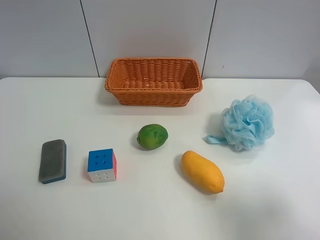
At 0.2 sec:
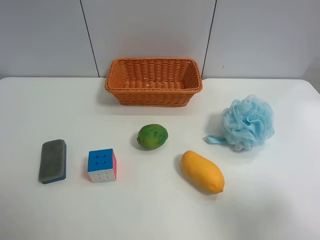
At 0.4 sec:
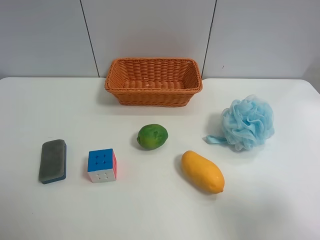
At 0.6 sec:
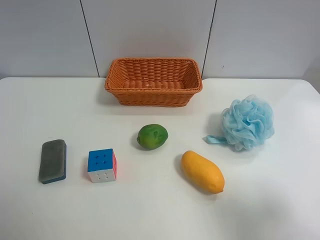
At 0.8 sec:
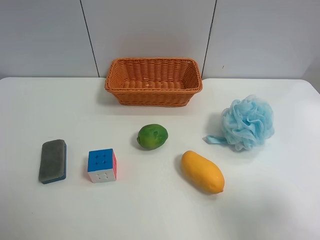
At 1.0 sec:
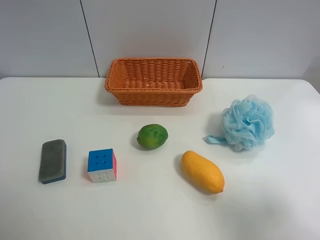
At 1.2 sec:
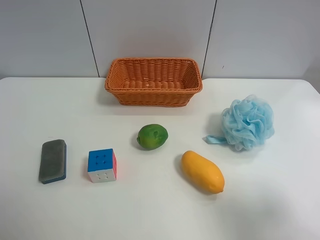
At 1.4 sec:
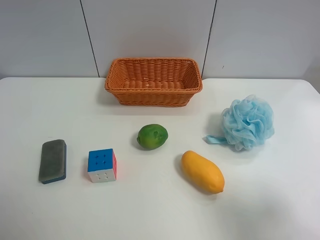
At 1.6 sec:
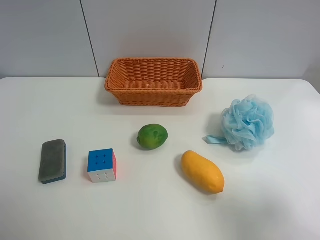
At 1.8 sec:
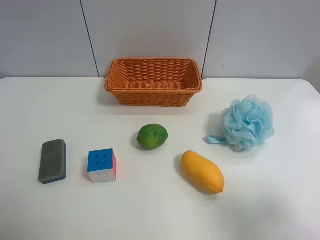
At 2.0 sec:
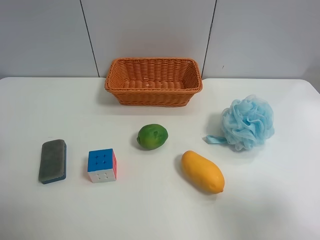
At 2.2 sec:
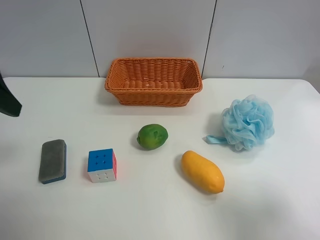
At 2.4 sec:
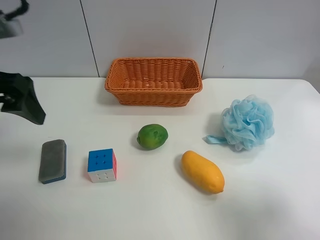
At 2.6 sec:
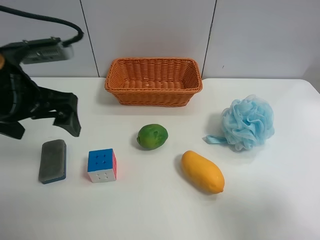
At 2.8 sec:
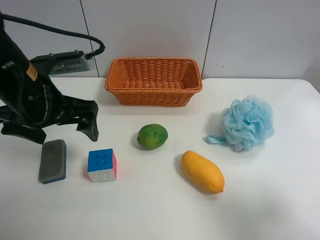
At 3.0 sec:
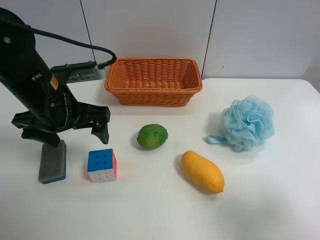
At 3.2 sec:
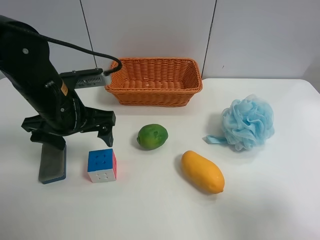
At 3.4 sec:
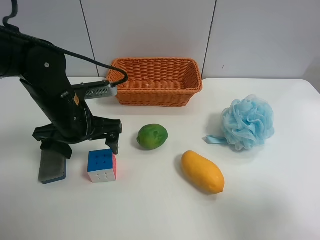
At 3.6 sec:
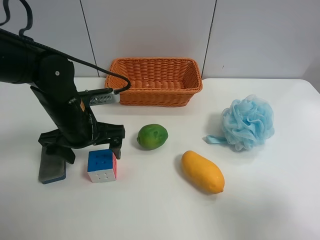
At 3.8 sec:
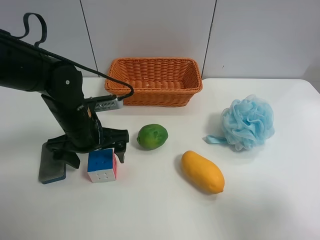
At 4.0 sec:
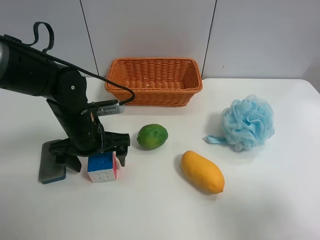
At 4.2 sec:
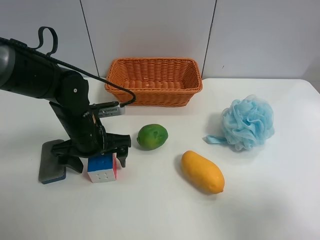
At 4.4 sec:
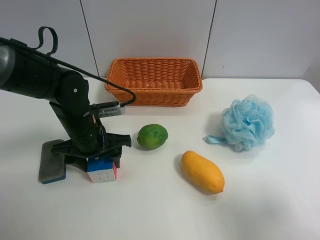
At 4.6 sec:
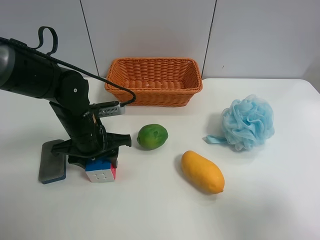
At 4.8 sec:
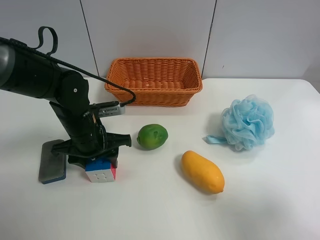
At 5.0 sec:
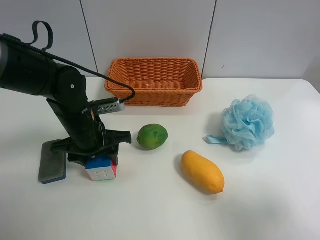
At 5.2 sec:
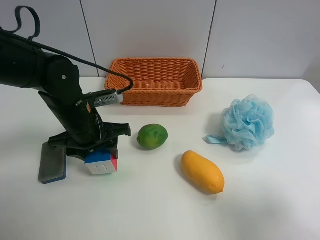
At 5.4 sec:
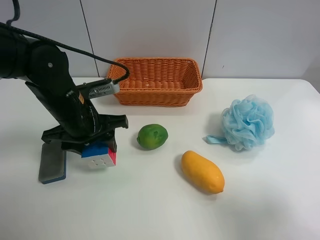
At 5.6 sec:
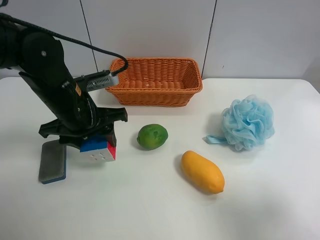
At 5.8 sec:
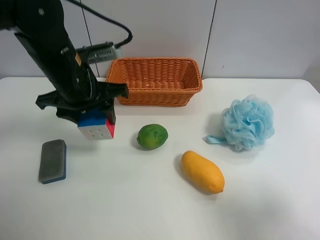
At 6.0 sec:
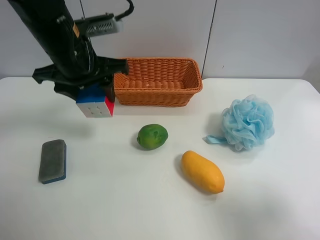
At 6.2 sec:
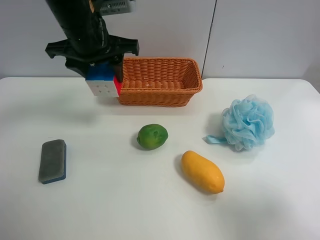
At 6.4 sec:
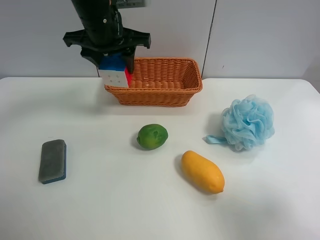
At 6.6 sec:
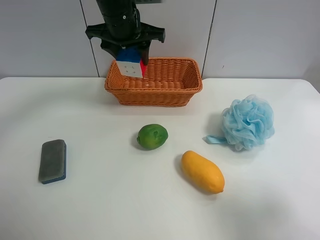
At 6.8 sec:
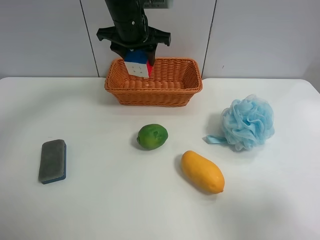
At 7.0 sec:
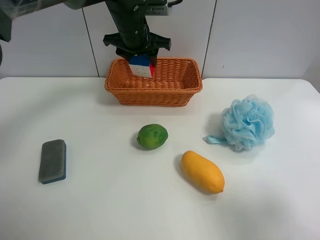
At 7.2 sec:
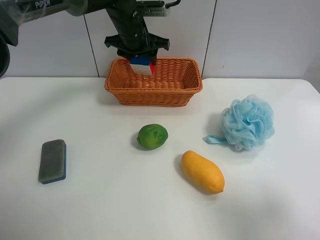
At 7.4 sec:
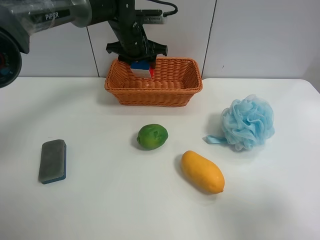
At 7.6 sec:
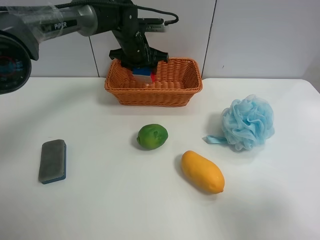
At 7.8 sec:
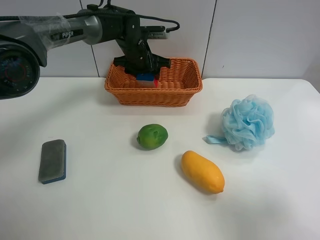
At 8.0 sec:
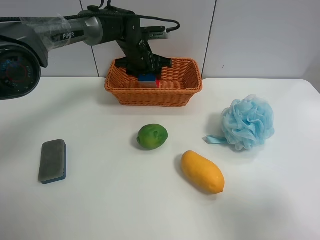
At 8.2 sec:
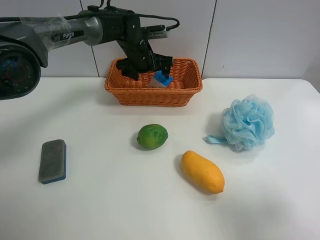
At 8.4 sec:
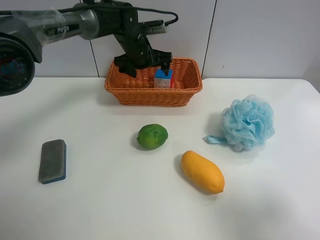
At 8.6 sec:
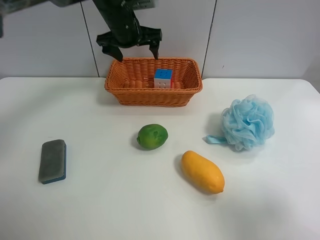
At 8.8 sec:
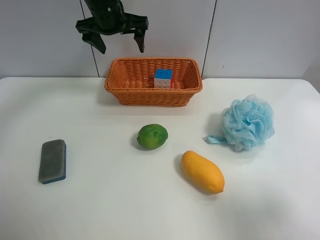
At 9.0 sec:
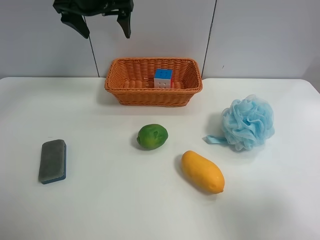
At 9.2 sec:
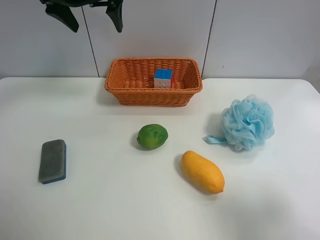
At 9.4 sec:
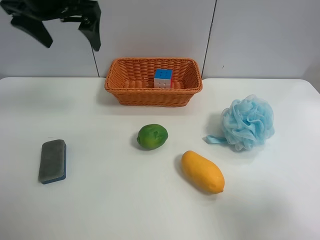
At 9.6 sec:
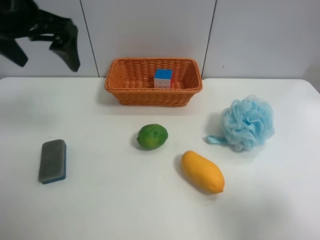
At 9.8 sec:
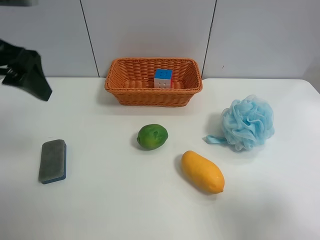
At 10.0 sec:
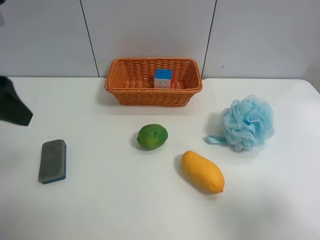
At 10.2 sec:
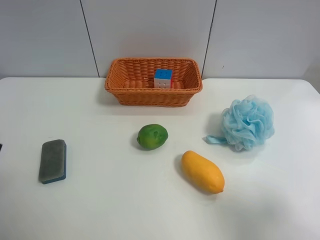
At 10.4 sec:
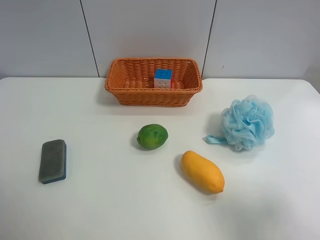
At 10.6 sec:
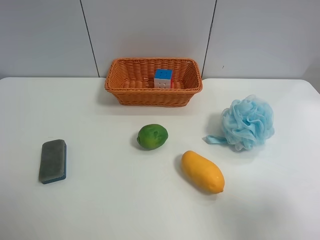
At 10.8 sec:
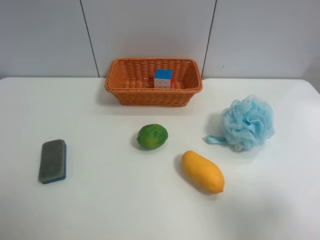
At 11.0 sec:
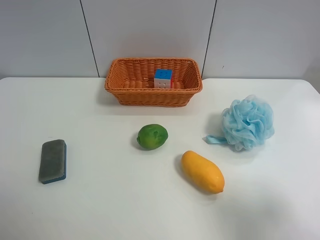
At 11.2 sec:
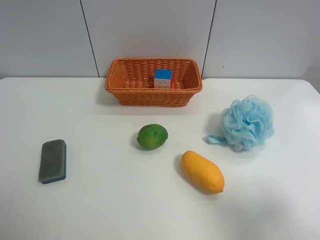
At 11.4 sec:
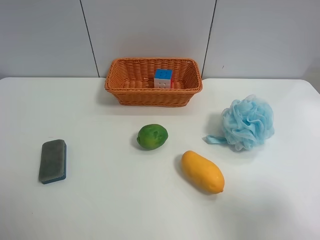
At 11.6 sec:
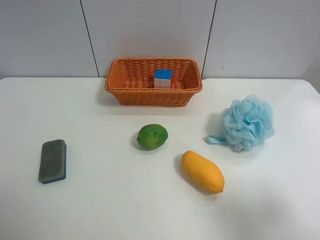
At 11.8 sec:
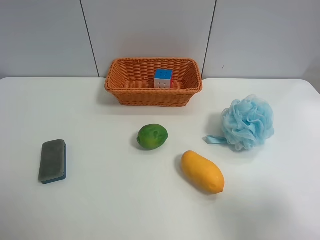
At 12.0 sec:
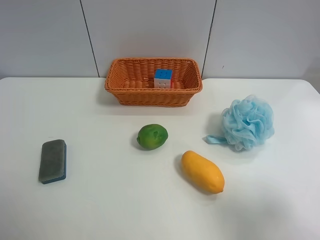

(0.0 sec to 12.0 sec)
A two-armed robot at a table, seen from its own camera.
Task of the whole recording: use the left gripper to grab items from the table and place them in the basket.
Step, 0.0 sec - 4.4 sec: Grasp the Rubik's Cube with the left gripper.
Step, 4.6 sec - 8.2 sec: Place the Rubik's Cube into the basket with the left gripper.
1.6 sec - 3.0 sec: The left gripper heads forward, to the right and downward, covering some 25 cm.
3.0 sec - 4.4 sec: The left gripper goes approximately 10 cm downward, and closes up.
4.4 sec - 6.0 sec: The left gripper is displaced upward by some 15 cm.
6.0 sec - 7.6 sec: The left gripper travels forward and downward by approximately 20 cm.
7.6 sec - 9.0 sec: The left gripper travels upward, to the left and backward by roughly 20 cm, and opens up.
9.0 sec - 10.4 sec: The left gripper goes about 40 cm backward and to the left.
